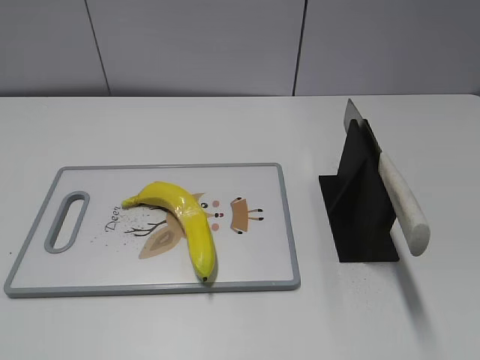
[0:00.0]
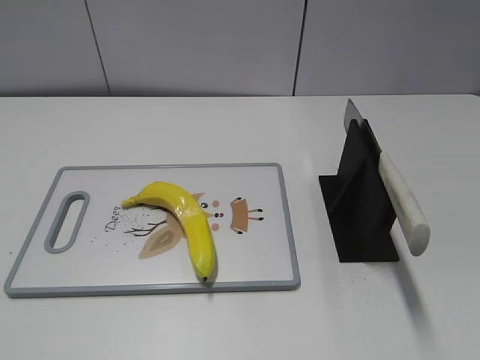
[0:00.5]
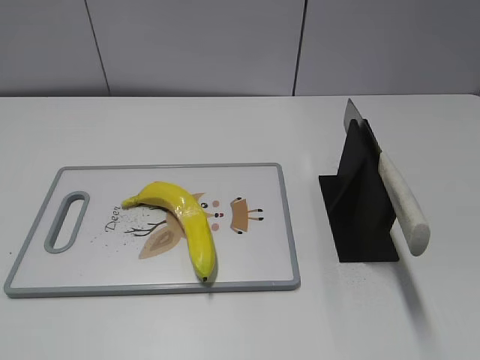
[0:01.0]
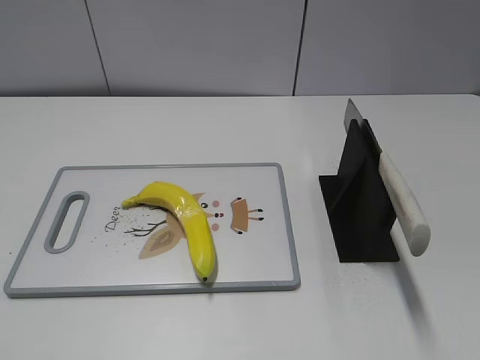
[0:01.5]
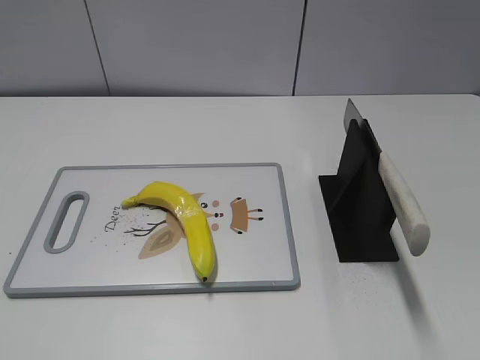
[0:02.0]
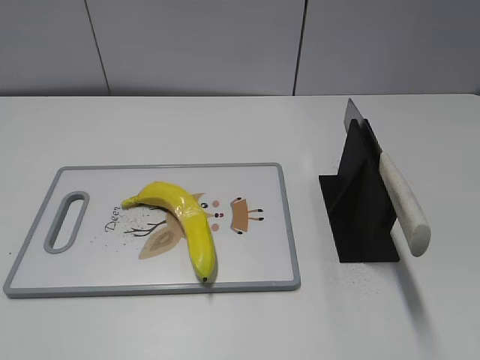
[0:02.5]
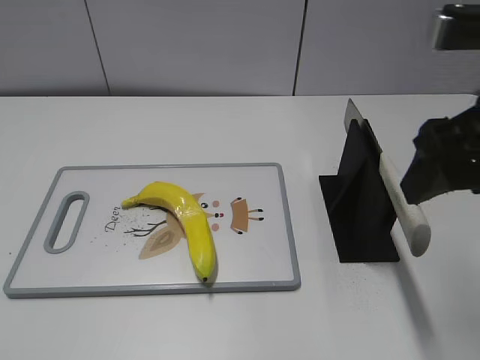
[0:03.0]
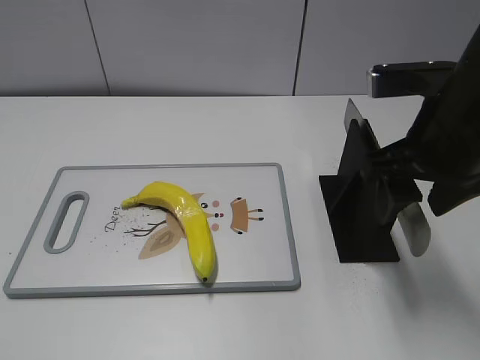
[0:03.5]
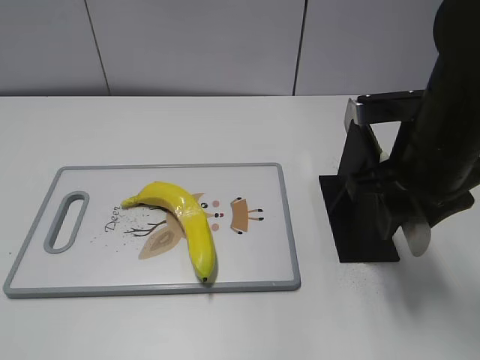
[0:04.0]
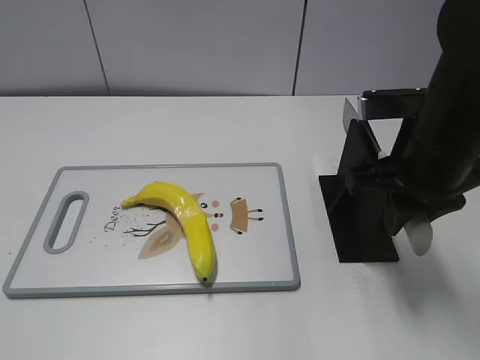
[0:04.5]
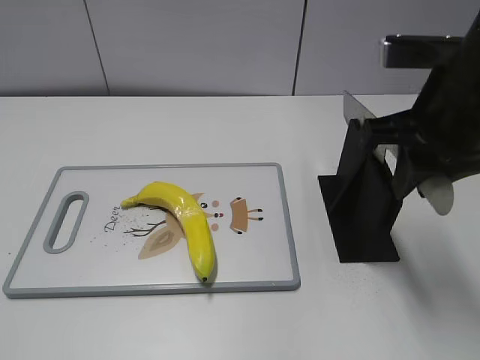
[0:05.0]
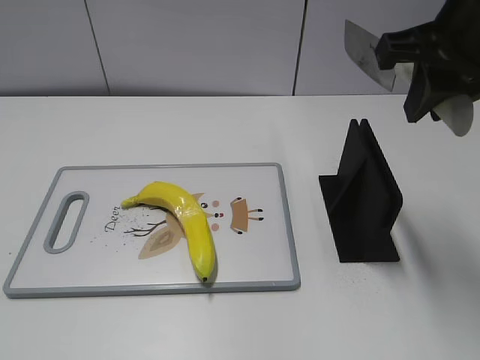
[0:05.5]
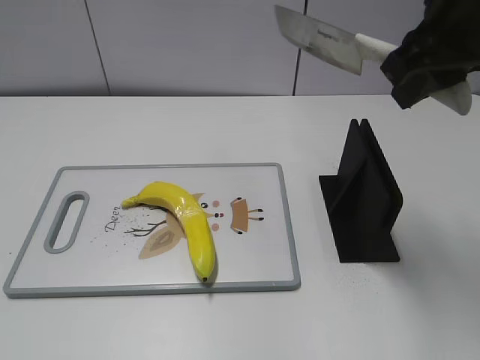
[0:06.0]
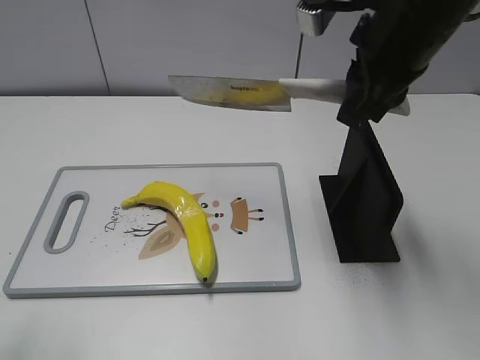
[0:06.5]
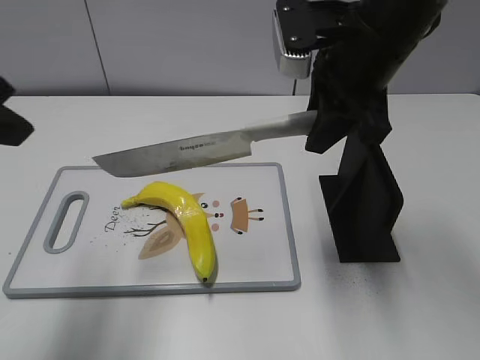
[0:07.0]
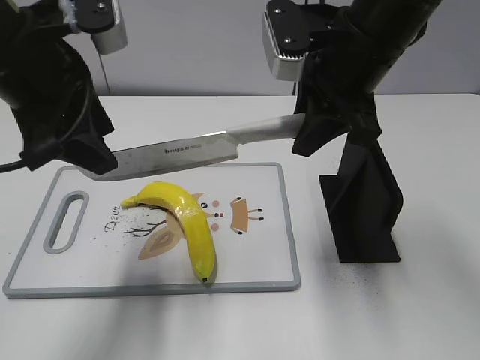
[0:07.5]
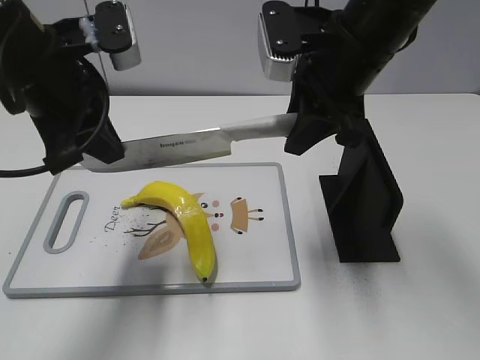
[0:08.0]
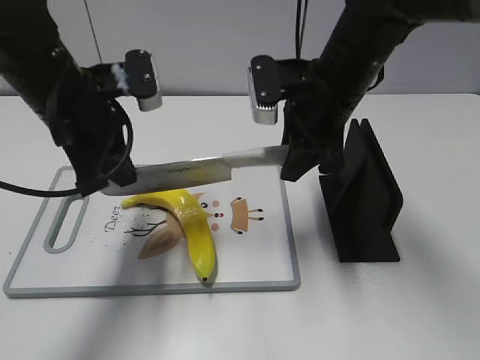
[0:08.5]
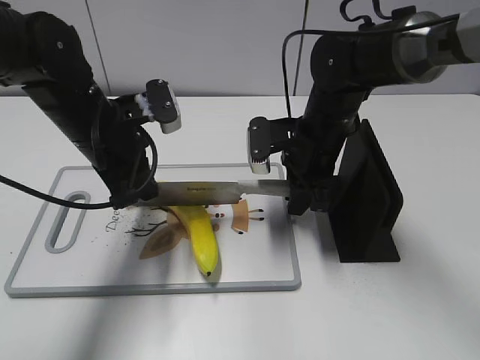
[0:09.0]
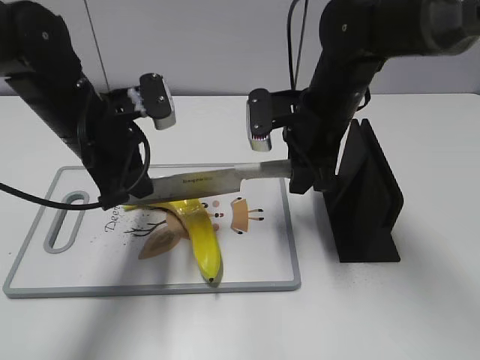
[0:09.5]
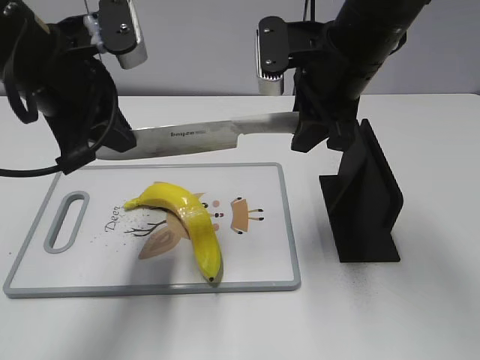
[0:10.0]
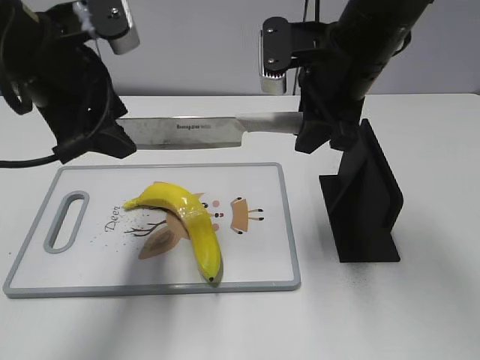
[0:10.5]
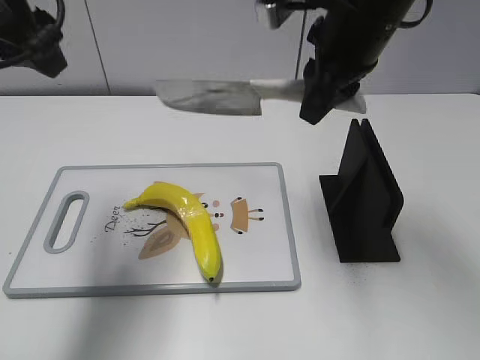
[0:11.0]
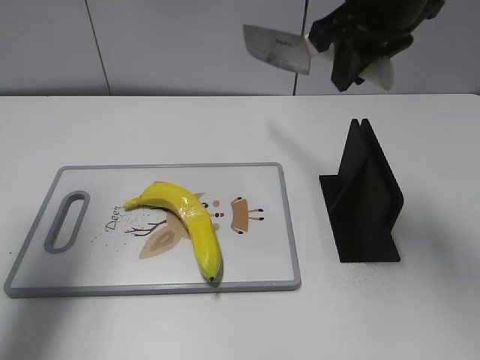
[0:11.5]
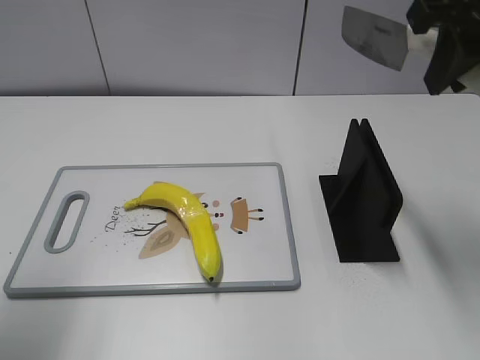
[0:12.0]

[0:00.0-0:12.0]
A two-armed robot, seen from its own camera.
Task of the whole recording: cut plastic banana.
Step, 0:00.0 to 0:05.0: Grab the knife handle with your right hand.
Step, 0:05.5 to 0:10.0: Lift the knife with your right hand.
Step, 0:10.5 to 0:11.0: Cut the banana with your right hand.
0:02.0 to 0:04.0: The right gripper travels forward, to the left and downward by approximately 30 cm, and closes up.
0:04.0 to 0:06.0: The right gripper heads upward, covering about 10 cm, and closes its fingers.
0:06.0 to 0:08.0: The left gripper moves forward and to the right, some 30 cm, and closes up. The right gripper moves to the left, downward and forward, about 10 cm.
0:08.0 to 0:10.0: The left gripper travels downward and back again, approximately 10 cm each way. The right gripper reaches approximately 15 cm downward, then returns.
0:10.0 to 0:12.0: The left gripper moves to the left, backward and upward, roughly 15 cm, and opens its fingers. Meanwhile the right gripper travels upward, to the right and backward by about 15 cm.

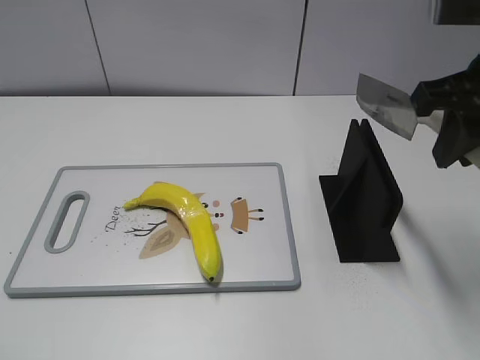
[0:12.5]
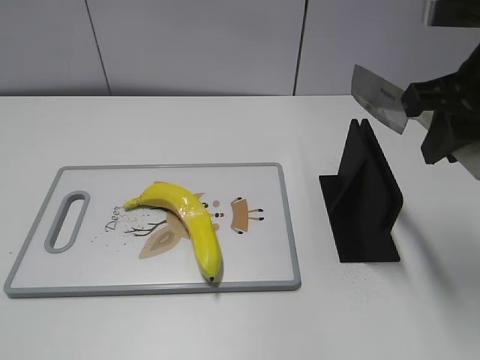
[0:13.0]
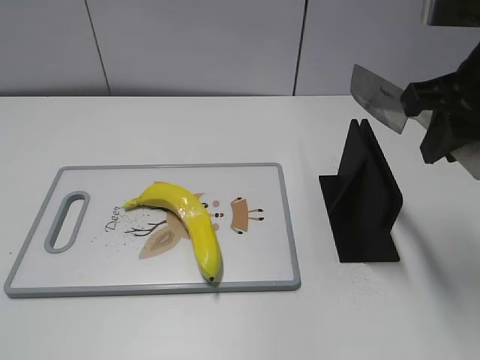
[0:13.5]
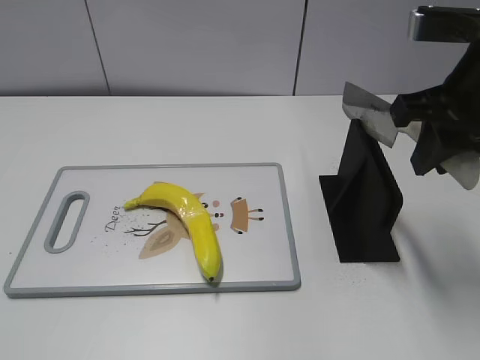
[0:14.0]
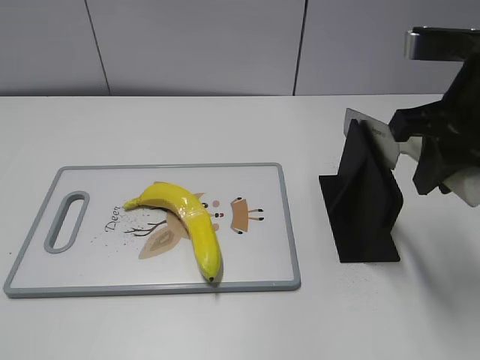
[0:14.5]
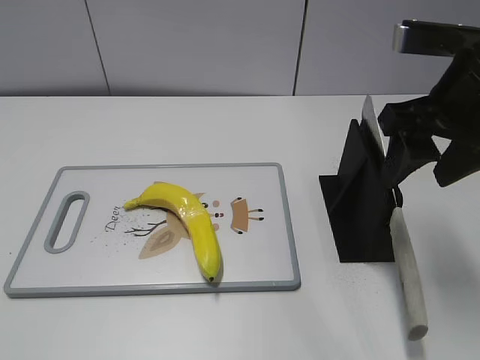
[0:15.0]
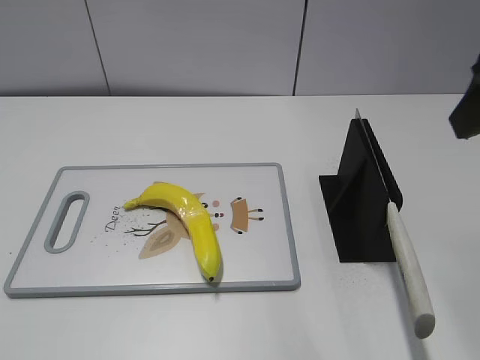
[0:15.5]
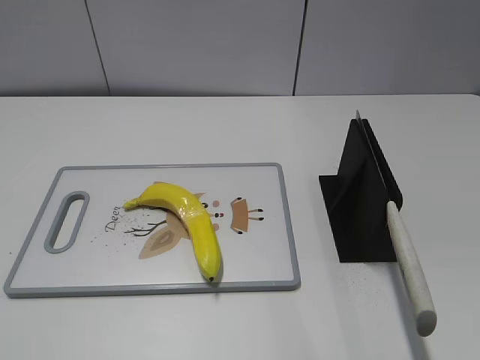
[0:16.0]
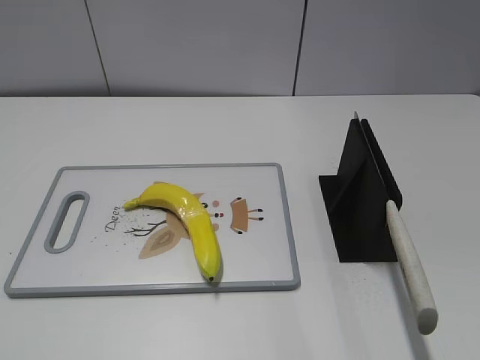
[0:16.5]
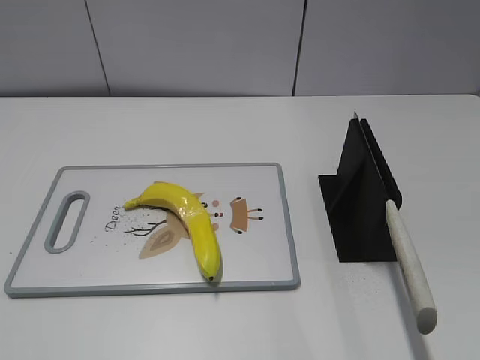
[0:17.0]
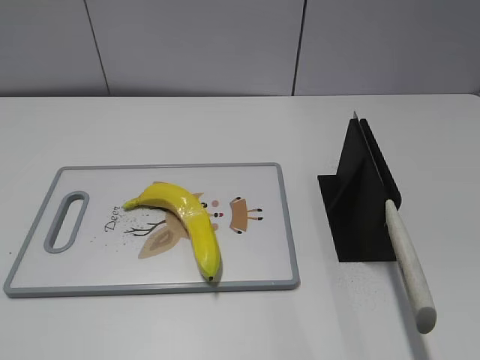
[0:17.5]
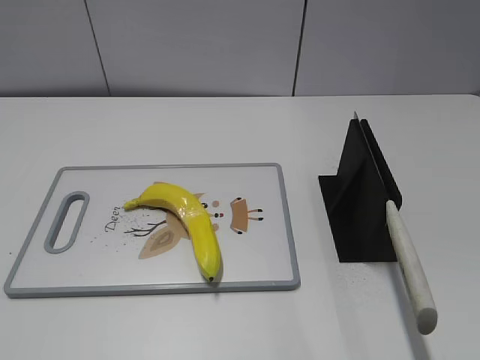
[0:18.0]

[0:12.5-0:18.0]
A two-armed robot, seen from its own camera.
Task of the whole recording: cut plastic banana.
Step, 0:13.0 to 0:18.0: Place the knife on the storage rack with your right hand.
0:14.5 to 0:16.0: The right gripper goes approximately 15 cm backward and upward, and opens up.
